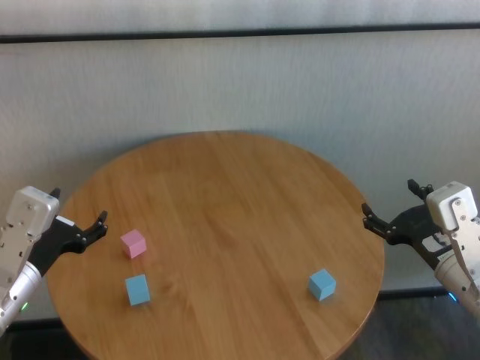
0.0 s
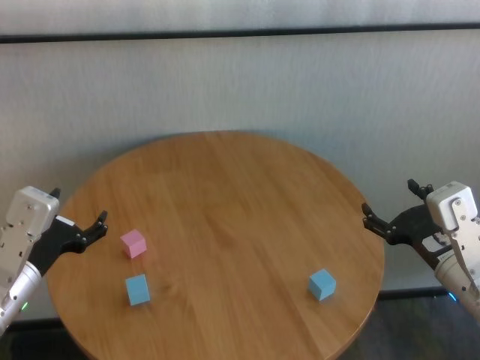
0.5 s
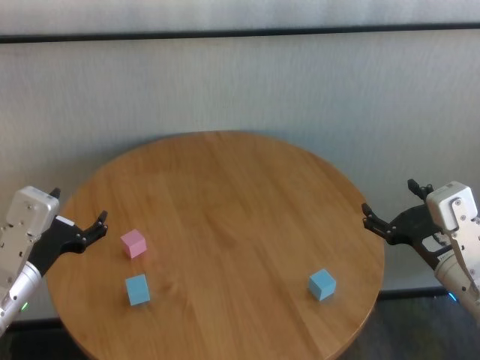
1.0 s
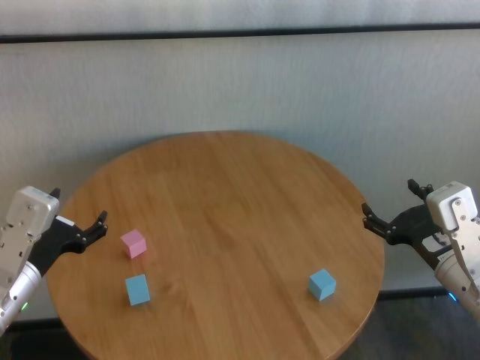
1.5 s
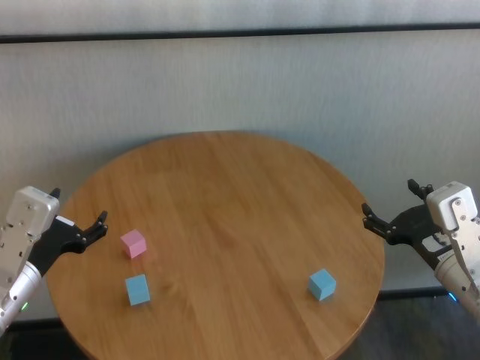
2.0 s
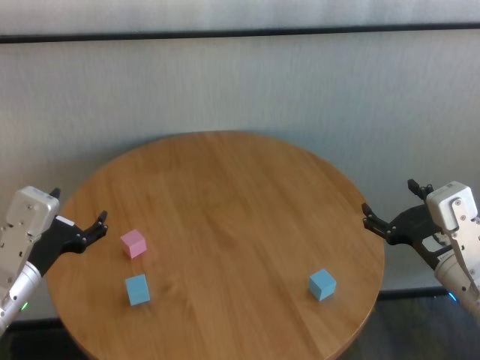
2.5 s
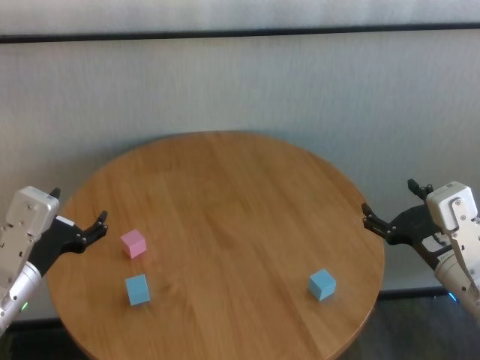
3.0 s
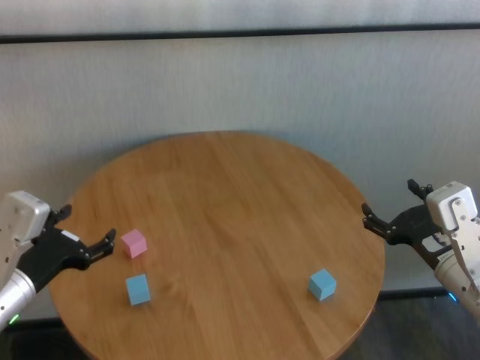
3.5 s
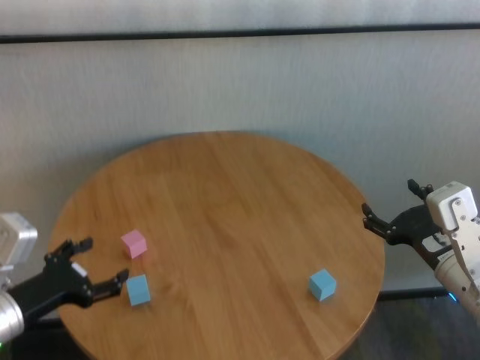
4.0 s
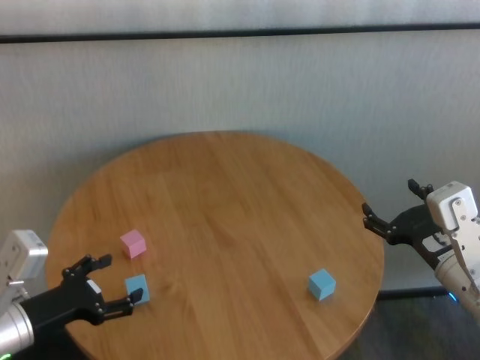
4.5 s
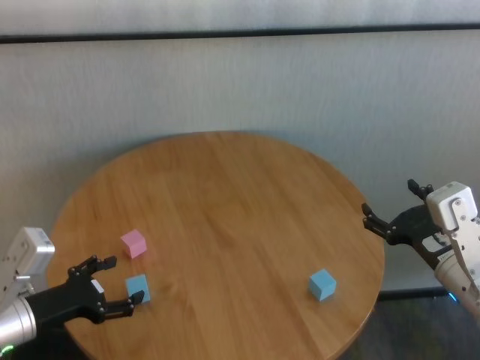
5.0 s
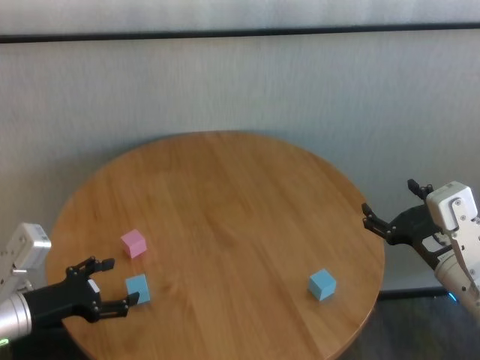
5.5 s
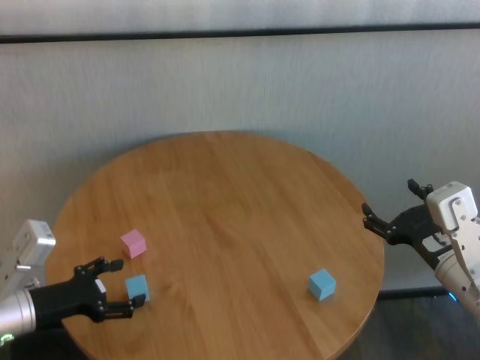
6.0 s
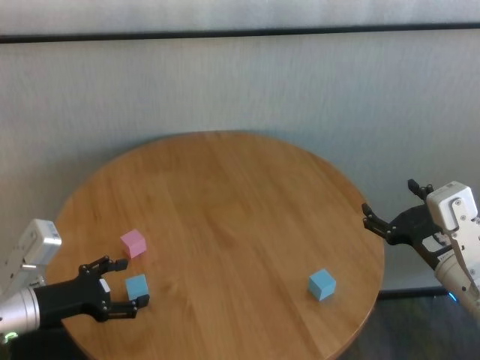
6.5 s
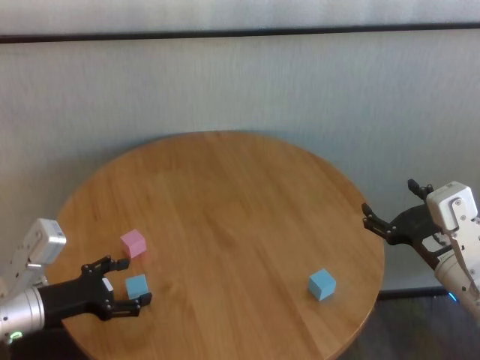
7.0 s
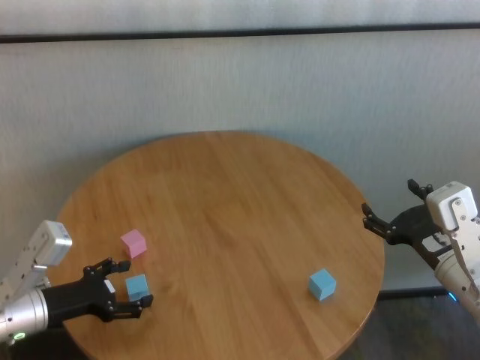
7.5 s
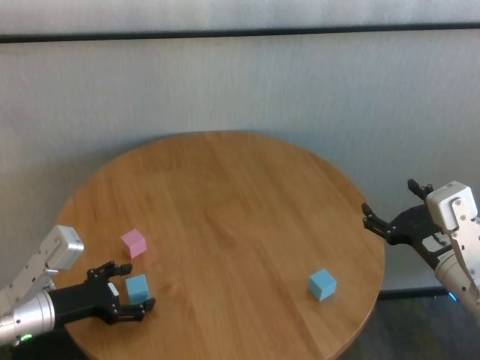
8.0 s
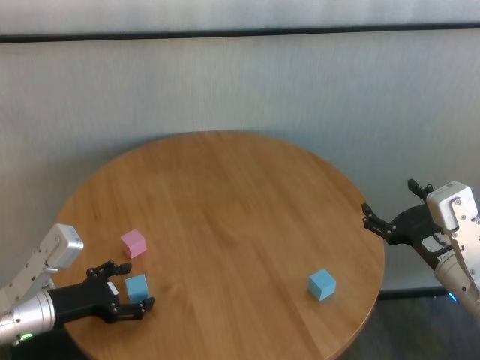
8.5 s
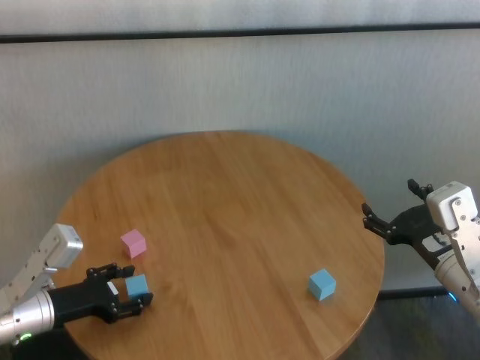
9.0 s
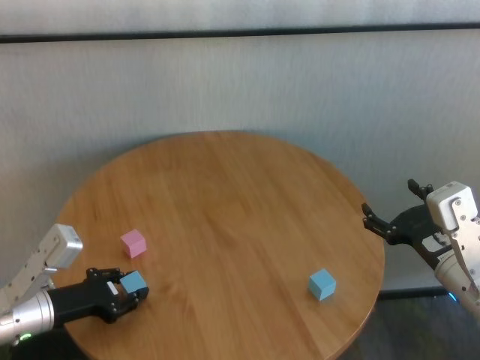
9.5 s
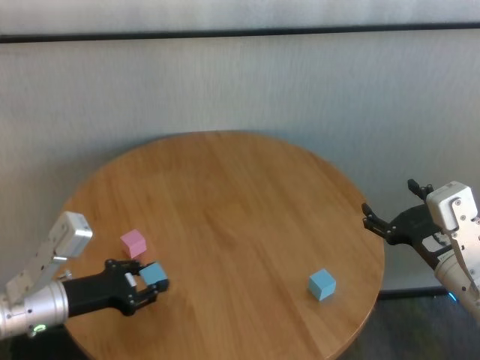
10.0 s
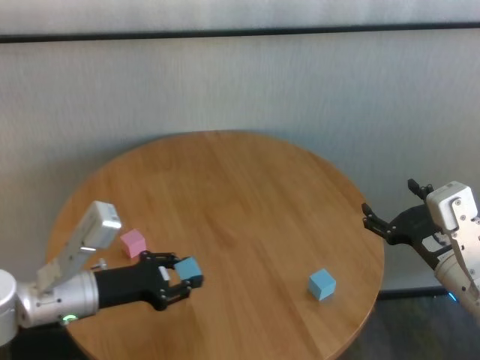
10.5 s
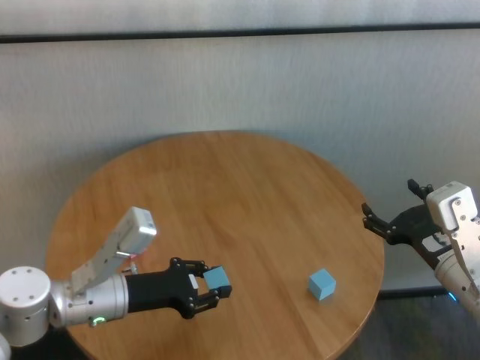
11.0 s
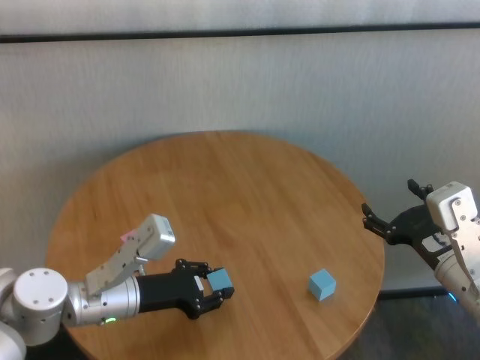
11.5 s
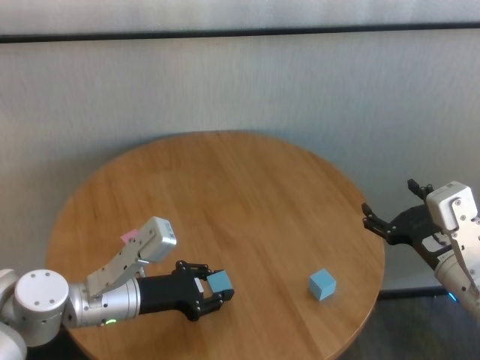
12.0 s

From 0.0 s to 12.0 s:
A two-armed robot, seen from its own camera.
Task of the whole recording: stack building blocks on the table.
Step, from 0.0 s to 9.0 s: Grasp the blue building block with left gripper.

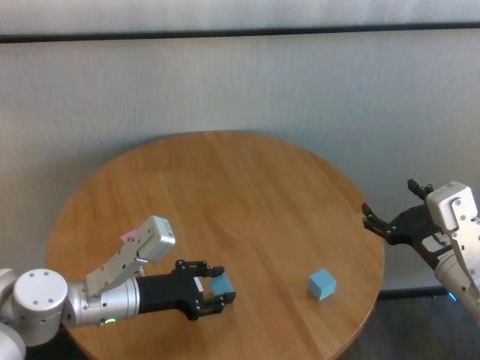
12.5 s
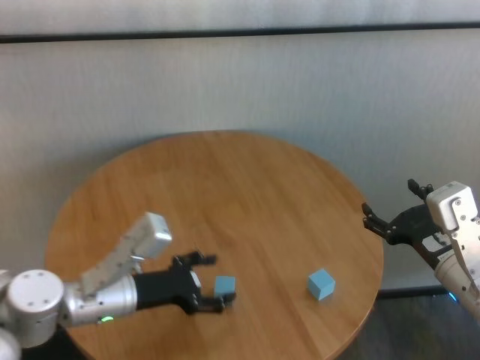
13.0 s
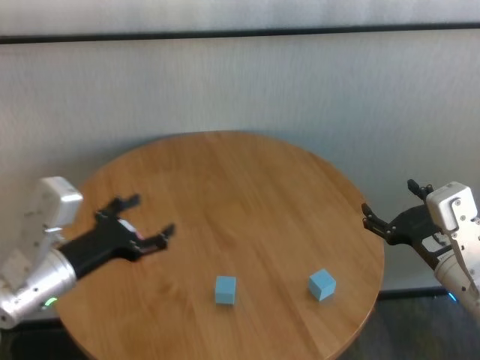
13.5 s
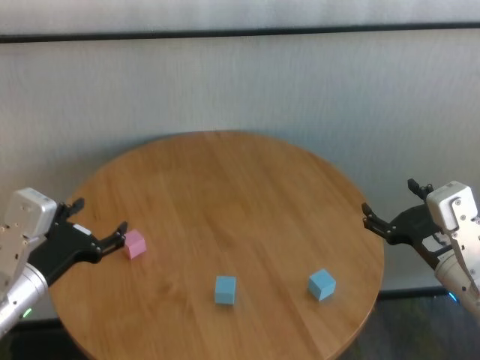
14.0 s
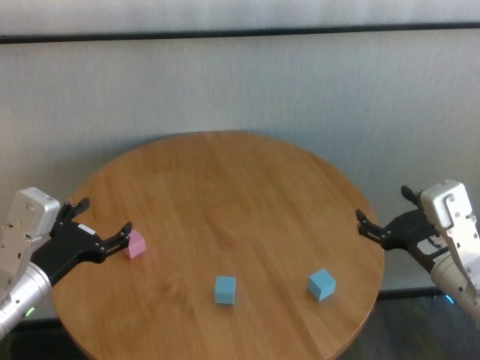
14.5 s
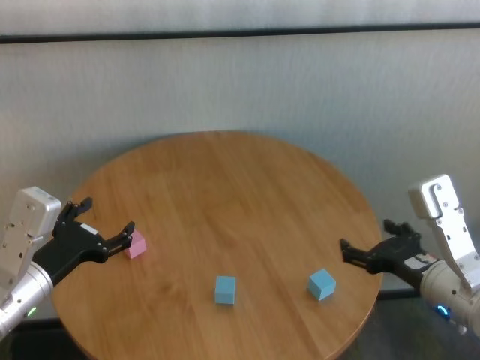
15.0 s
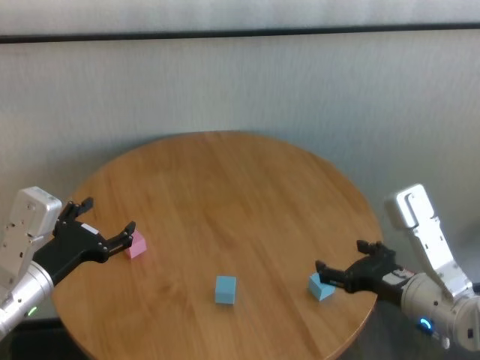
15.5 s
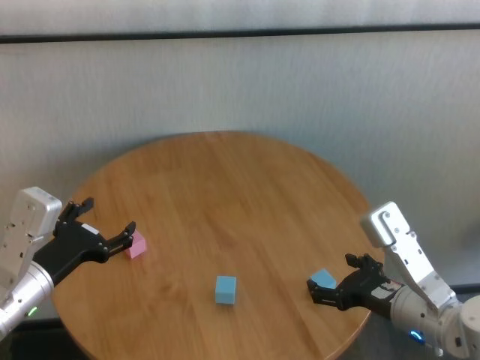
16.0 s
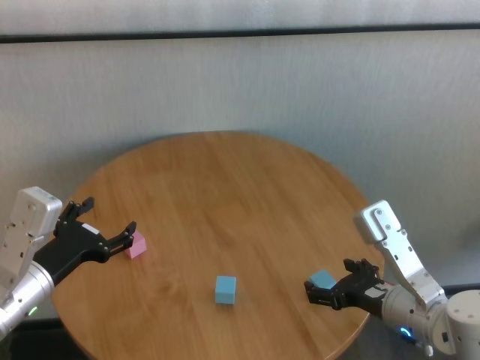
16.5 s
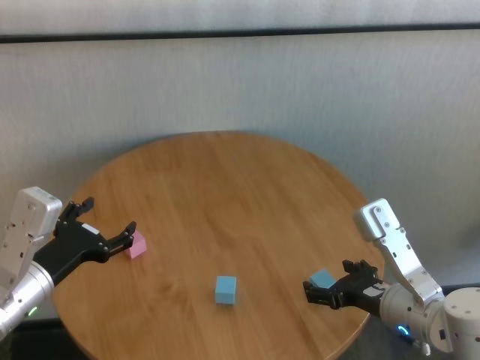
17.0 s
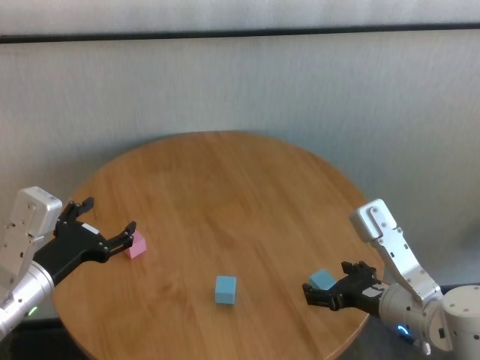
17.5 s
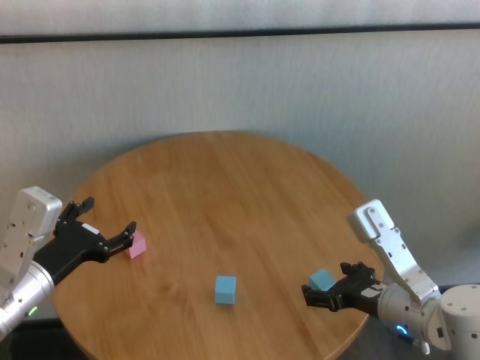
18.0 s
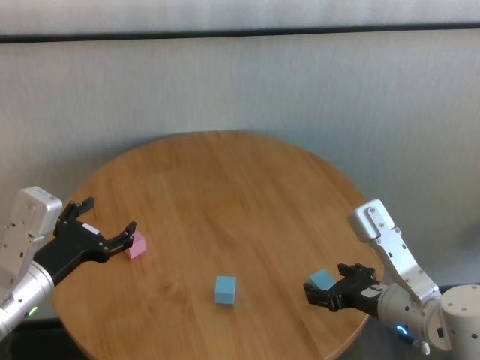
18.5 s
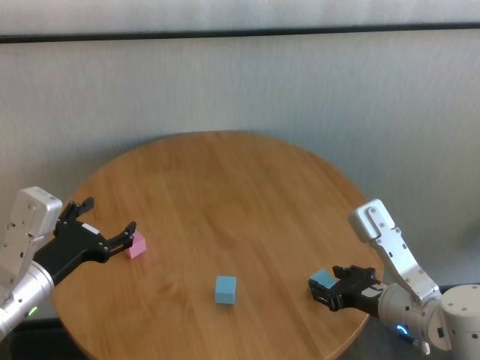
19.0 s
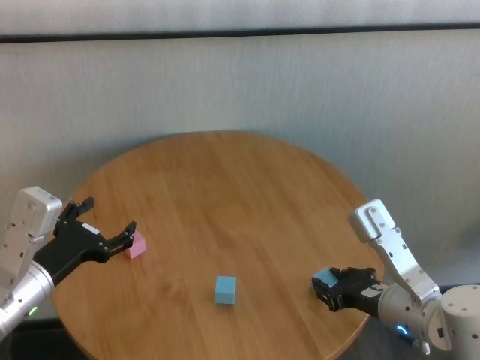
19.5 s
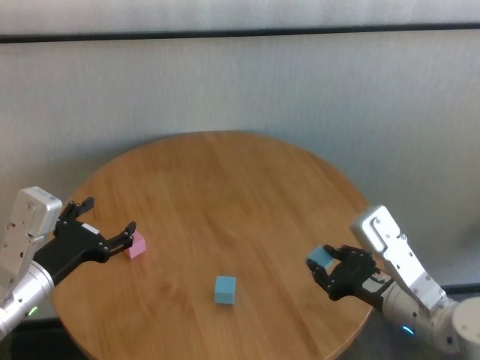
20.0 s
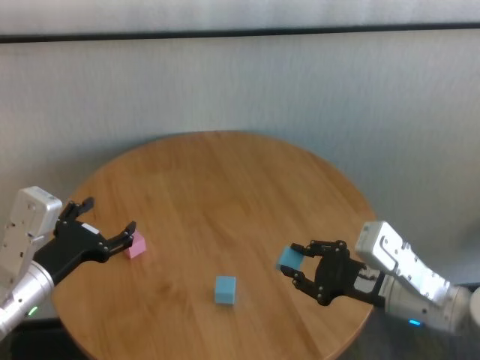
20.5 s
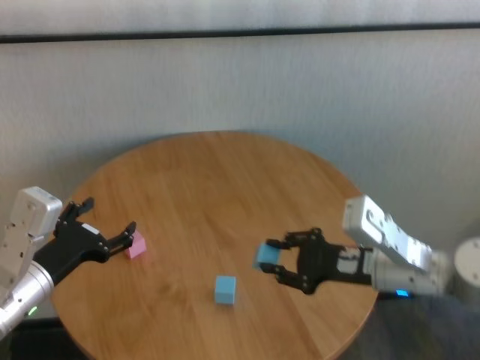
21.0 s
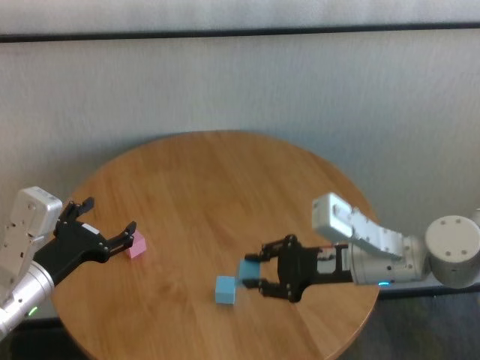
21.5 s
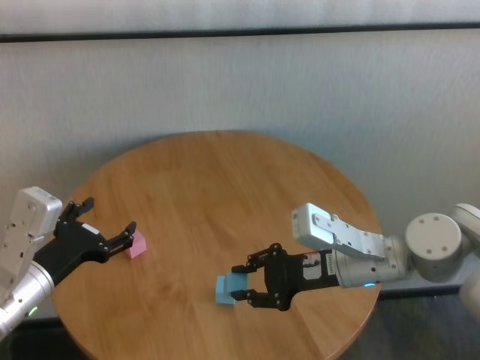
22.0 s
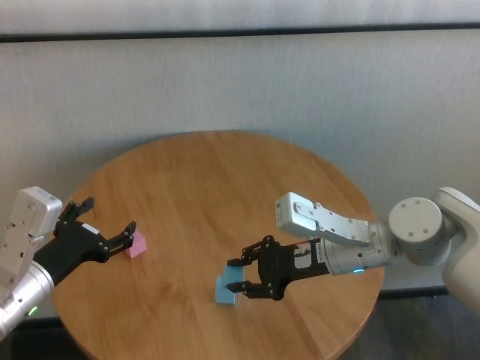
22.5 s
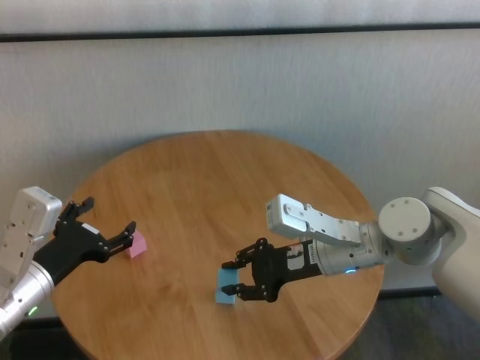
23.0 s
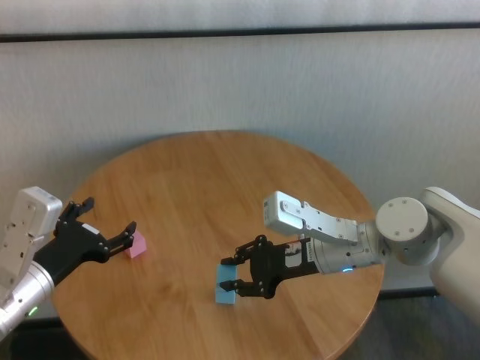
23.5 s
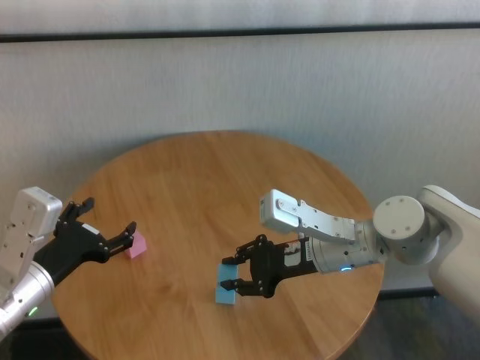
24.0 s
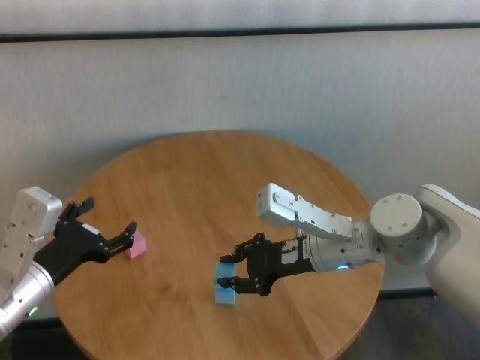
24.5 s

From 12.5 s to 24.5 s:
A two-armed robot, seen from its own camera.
Task of the whole recording: stack building blocks on the table.
Step, from 13.0 s to 19.0 s: Grasp the blue building block with right gripper.

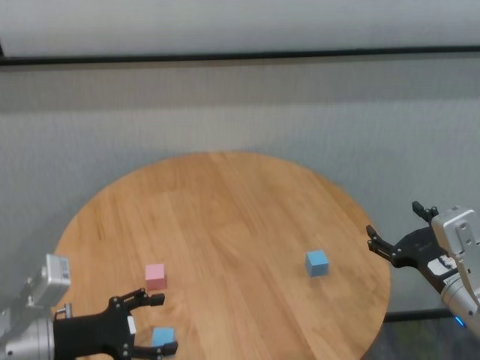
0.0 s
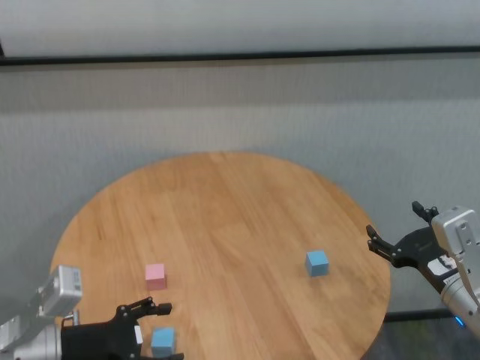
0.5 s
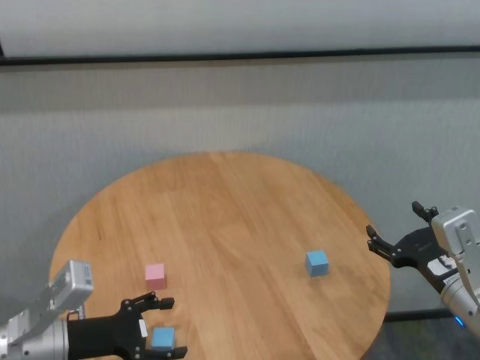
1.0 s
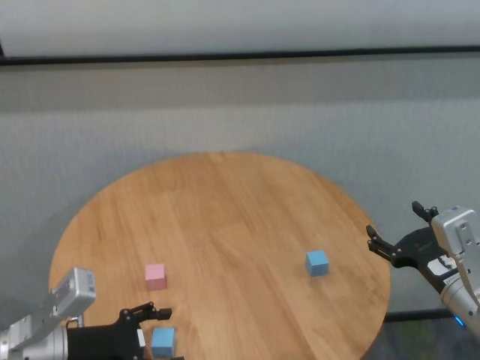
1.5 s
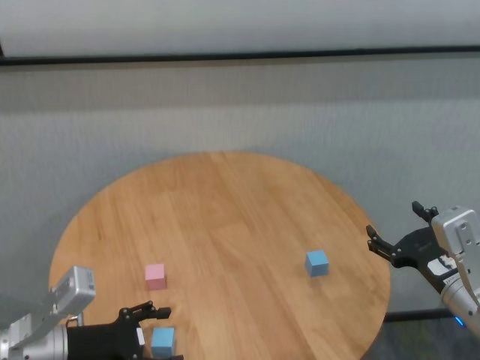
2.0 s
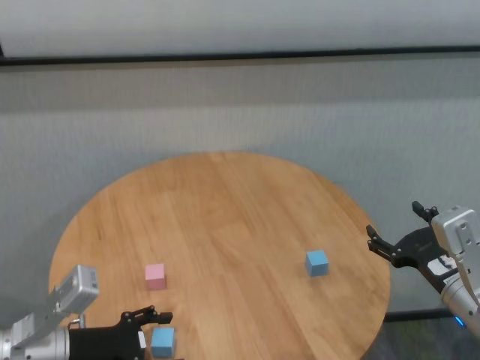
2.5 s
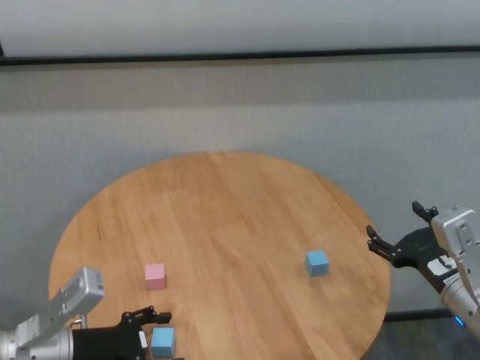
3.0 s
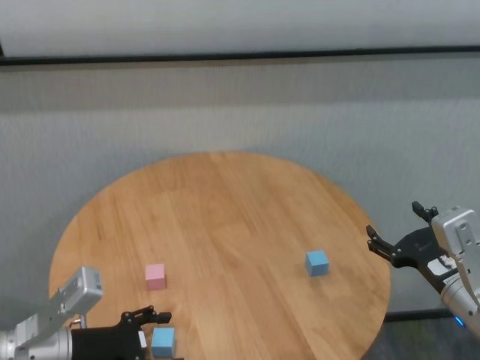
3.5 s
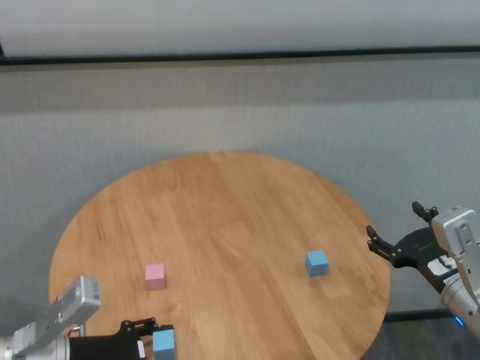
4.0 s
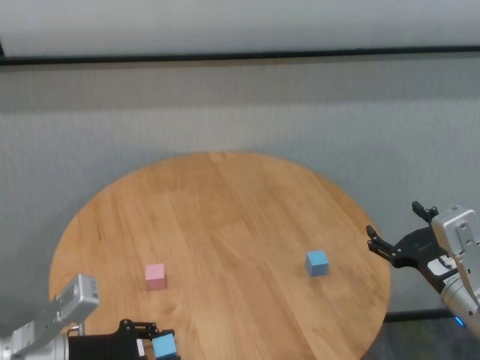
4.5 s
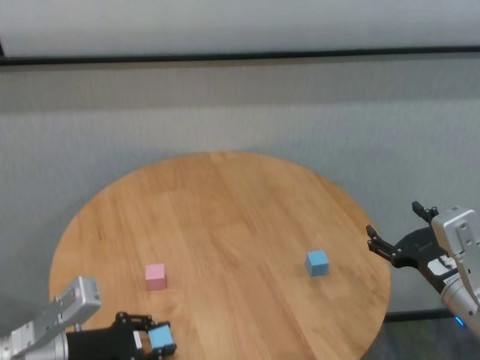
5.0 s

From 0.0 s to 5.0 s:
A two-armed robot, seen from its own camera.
Task of the whole recording: stack building blocks on the table.
Step, from 0.0 s to 4.5 s: Grasp the blue building block with left gripper.
